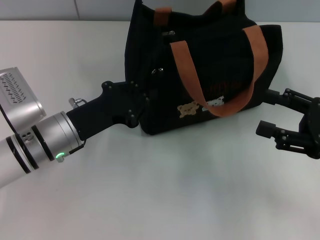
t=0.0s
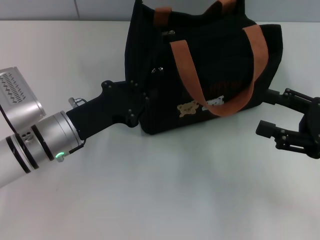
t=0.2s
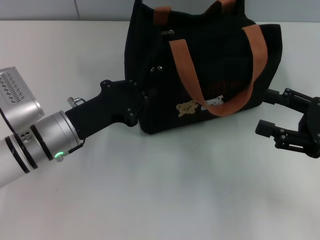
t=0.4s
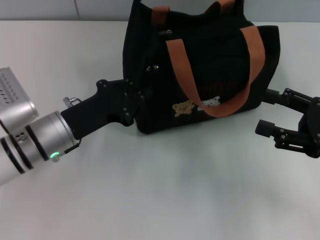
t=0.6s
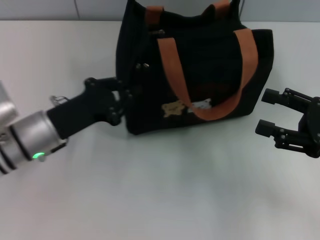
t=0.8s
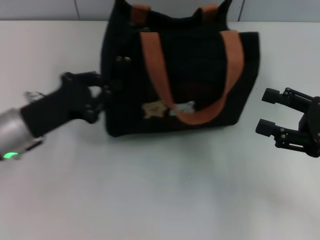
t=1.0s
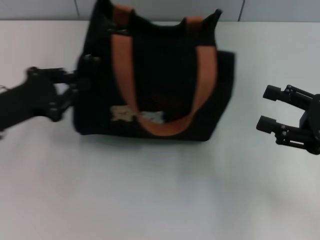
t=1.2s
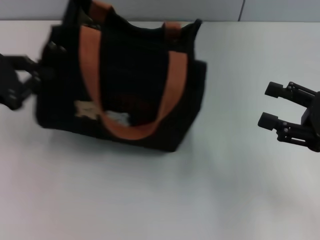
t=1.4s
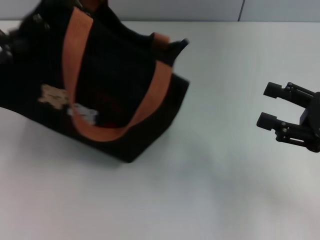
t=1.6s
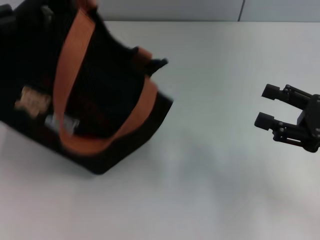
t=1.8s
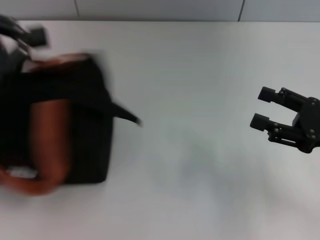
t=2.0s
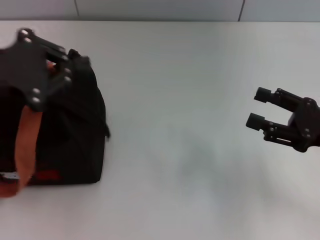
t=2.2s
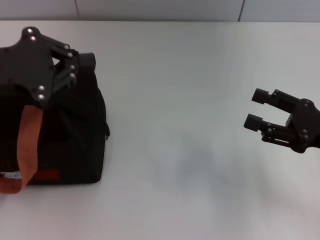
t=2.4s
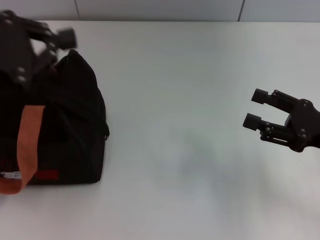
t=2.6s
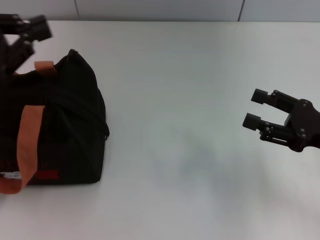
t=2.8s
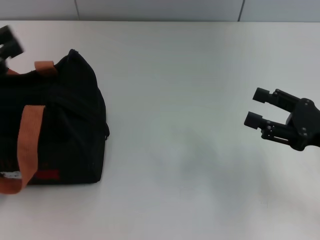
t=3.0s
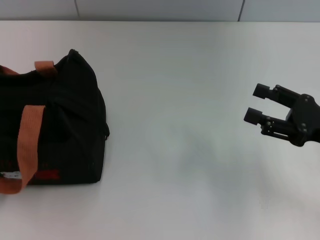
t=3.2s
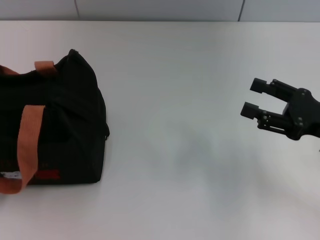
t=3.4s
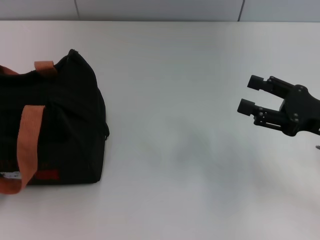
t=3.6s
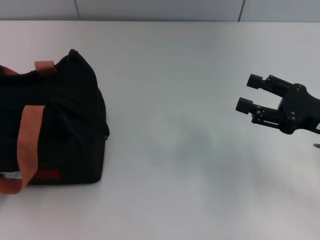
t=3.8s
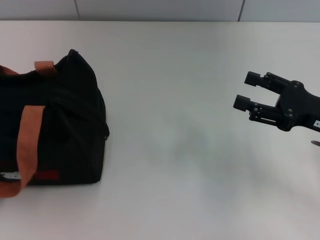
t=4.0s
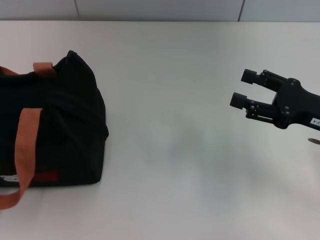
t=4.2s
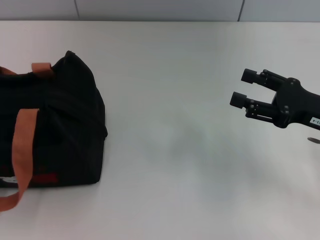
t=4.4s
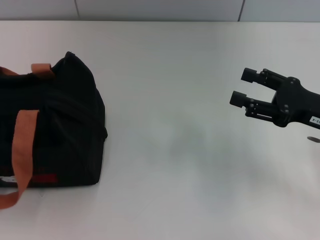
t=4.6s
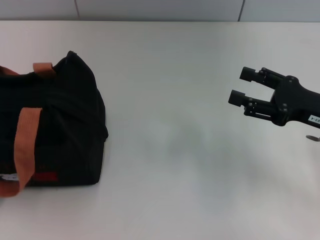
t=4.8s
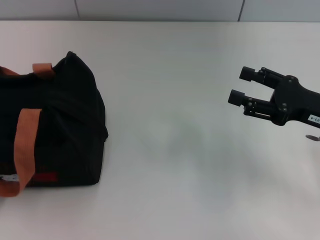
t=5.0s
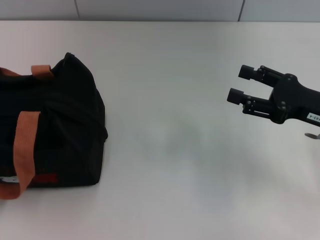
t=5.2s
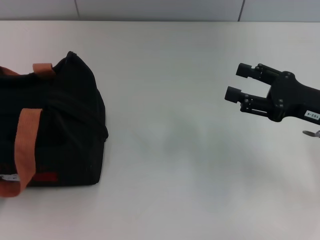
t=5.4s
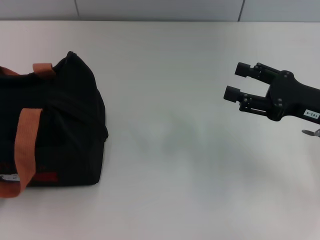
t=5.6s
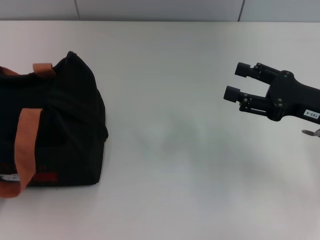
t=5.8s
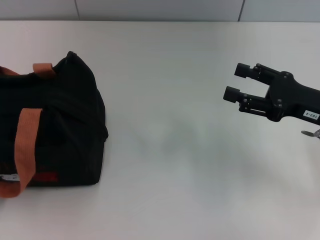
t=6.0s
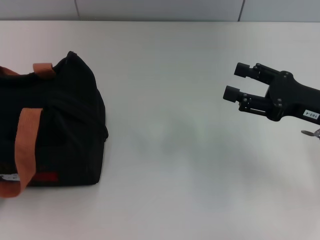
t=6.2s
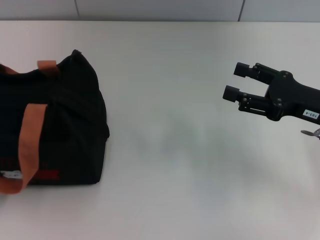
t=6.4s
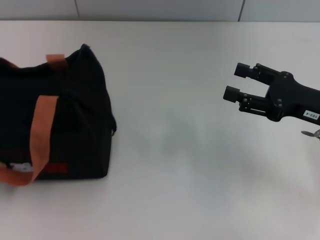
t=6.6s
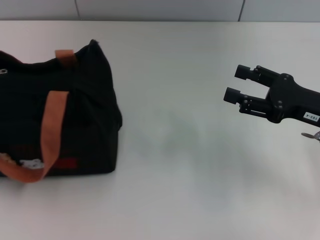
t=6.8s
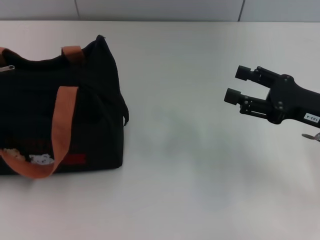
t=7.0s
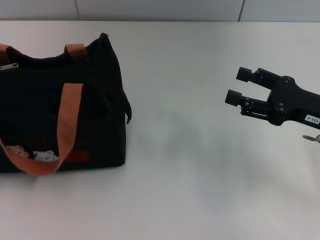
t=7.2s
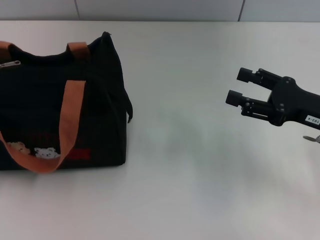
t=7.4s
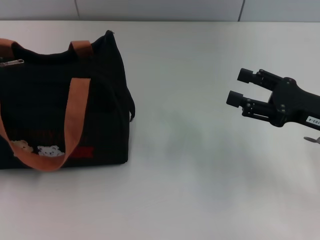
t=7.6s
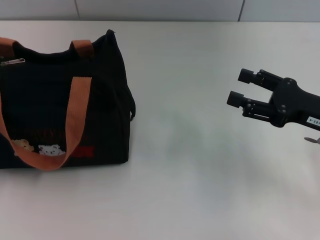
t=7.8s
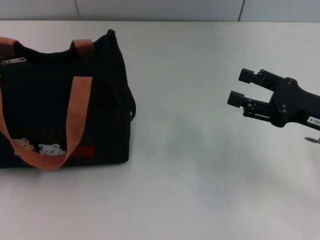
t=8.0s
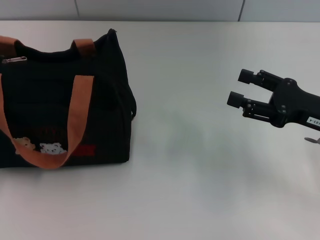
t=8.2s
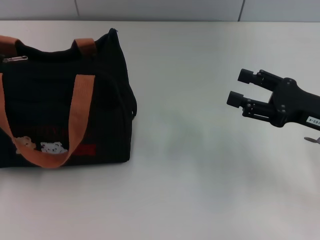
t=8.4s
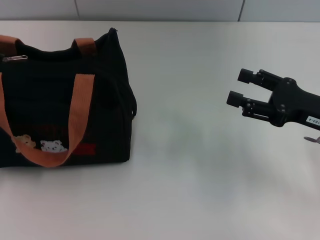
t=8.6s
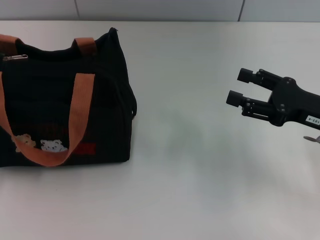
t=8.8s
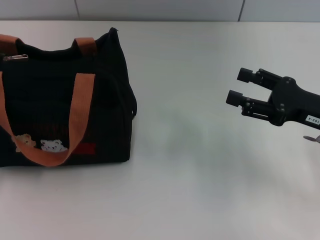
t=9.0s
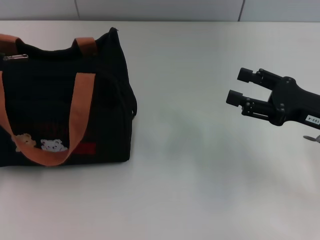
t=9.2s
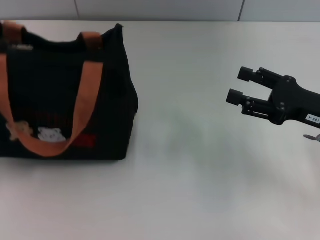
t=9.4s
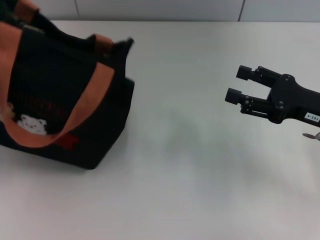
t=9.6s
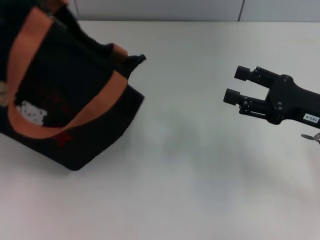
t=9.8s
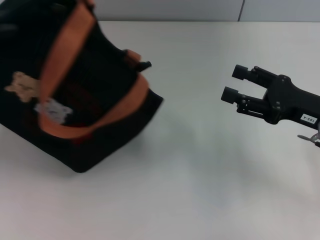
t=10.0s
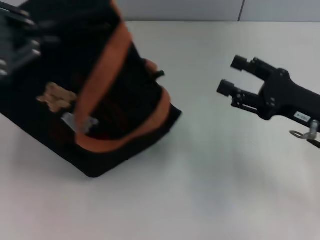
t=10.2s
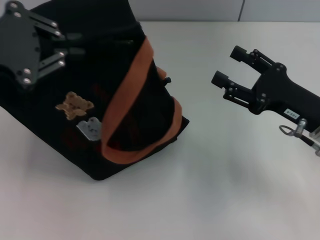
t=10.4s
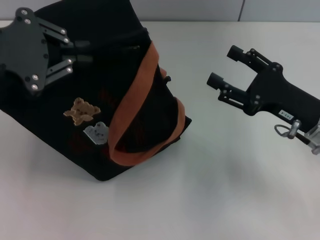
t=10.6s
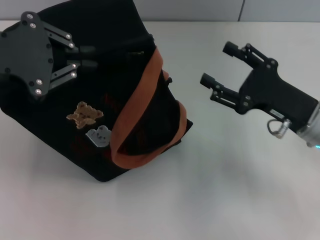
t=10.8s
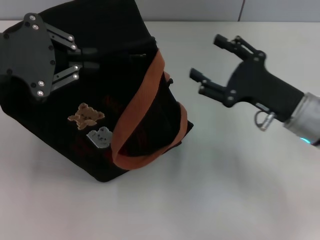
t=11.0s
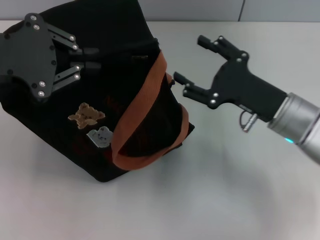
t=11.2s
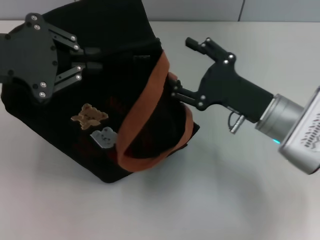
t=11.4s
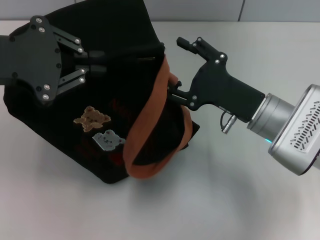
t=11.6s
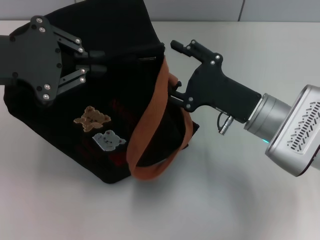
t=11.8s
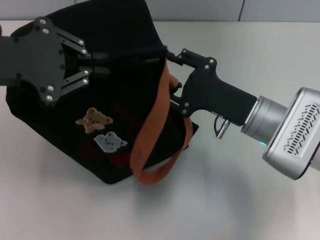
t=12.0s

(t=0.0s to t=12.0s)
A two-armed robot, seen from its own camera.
t=0.0s - t=1.6s: The left gripper heads to the left and upward, covering about 20 cm.
t=3.0s - t=4.4s: The left gripper heads backward, to the left and downward, covering some 15 cm, and opens up.
t=4.4s - t=6.0s: The grippers stay close to where they were, moving slightly.
t=6.0s - t=7.6s: The left gripper heads forward and to the right, covering approximately 10 cm, and closes.
t=7.6s - t=9.0s: Both grippers stay about where they are.
t=9.0s - t=10.4s: The left gripper travels upward, to the right and forward by roughly 20 cm.
t=10.4s - t=12.0s: The right gripper is displaced to the left by approximately 10 cm.

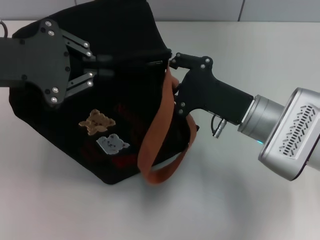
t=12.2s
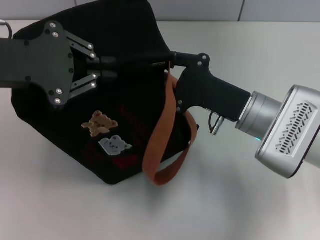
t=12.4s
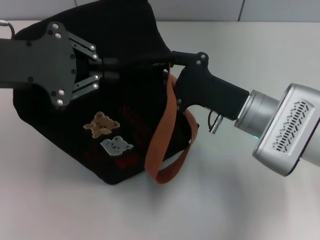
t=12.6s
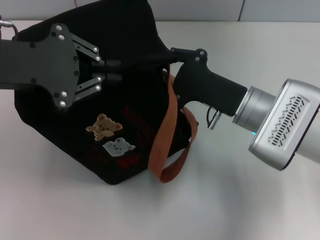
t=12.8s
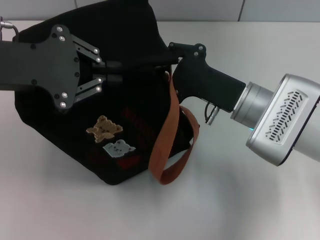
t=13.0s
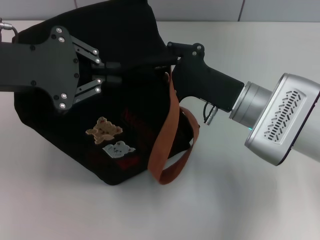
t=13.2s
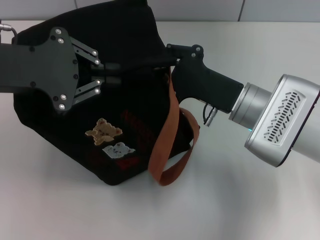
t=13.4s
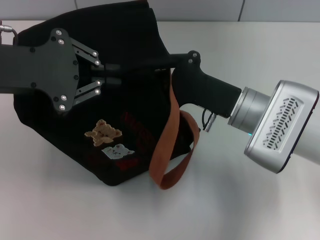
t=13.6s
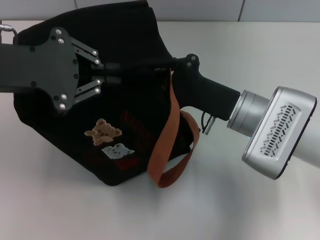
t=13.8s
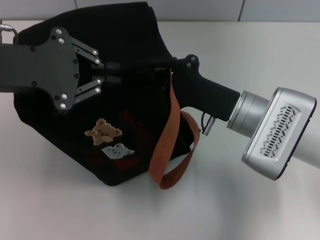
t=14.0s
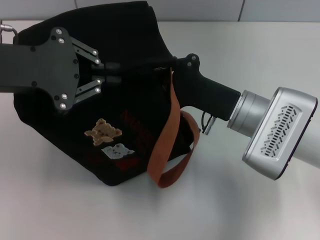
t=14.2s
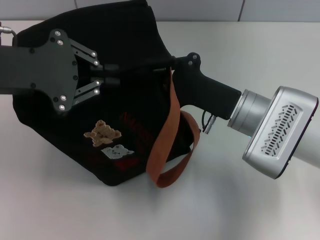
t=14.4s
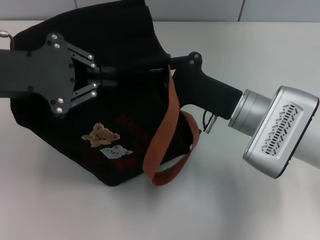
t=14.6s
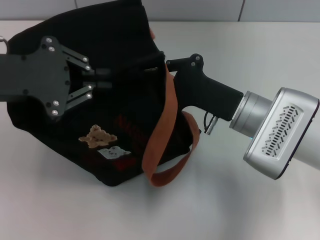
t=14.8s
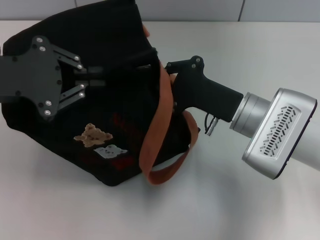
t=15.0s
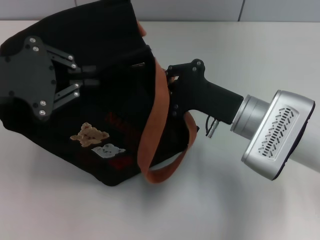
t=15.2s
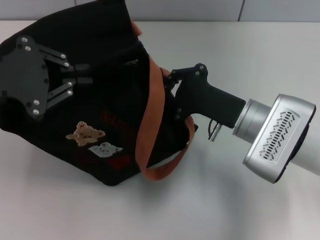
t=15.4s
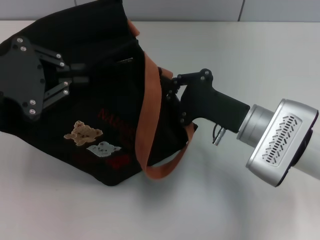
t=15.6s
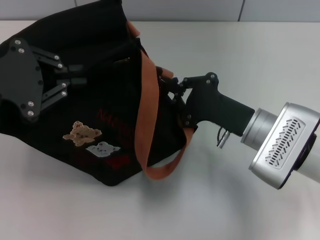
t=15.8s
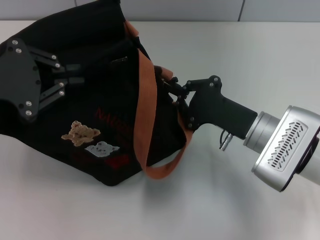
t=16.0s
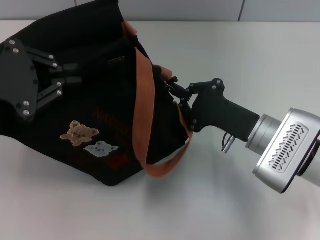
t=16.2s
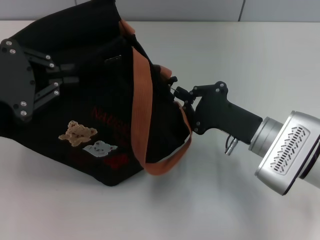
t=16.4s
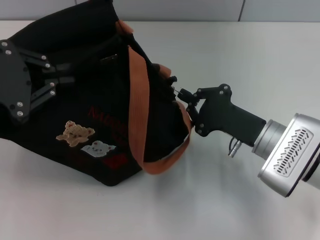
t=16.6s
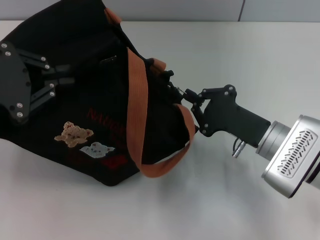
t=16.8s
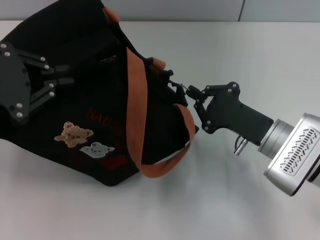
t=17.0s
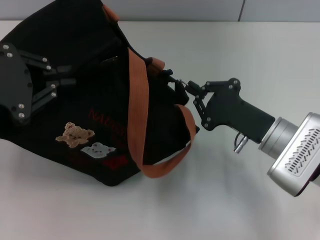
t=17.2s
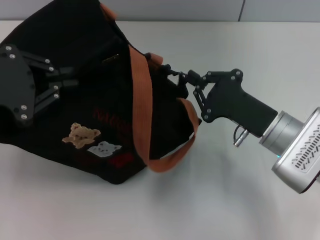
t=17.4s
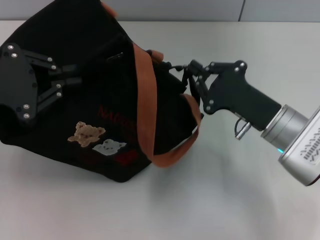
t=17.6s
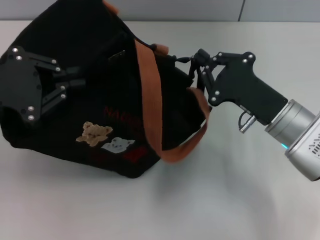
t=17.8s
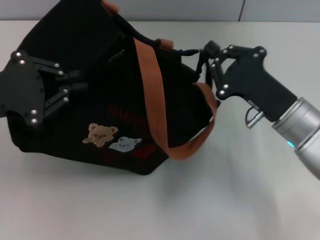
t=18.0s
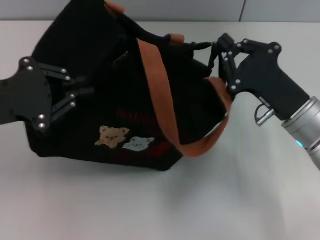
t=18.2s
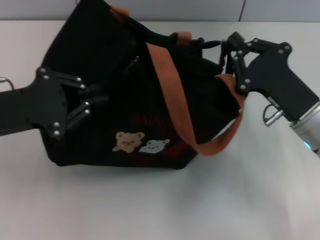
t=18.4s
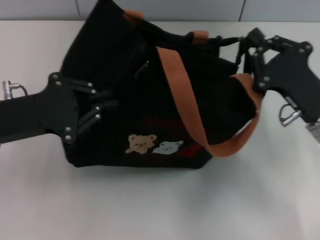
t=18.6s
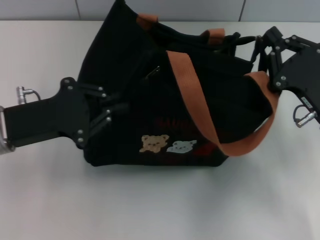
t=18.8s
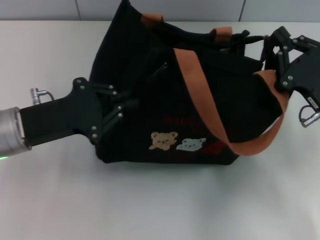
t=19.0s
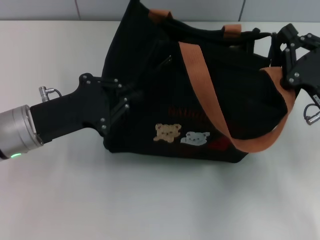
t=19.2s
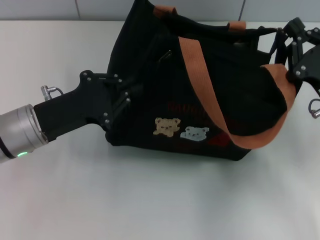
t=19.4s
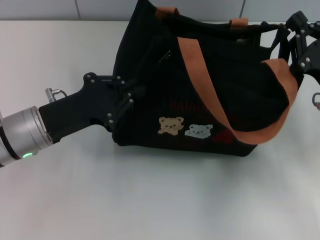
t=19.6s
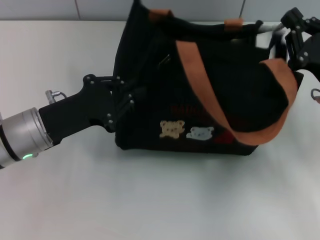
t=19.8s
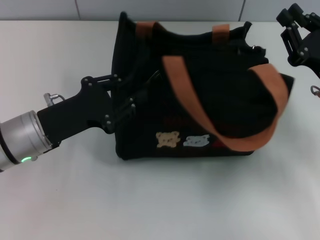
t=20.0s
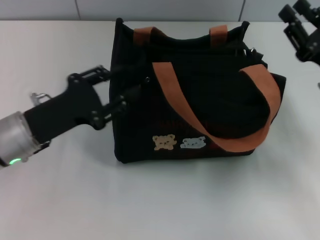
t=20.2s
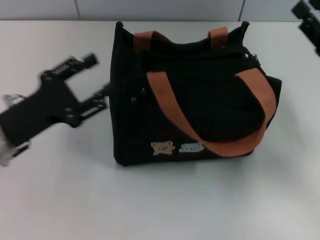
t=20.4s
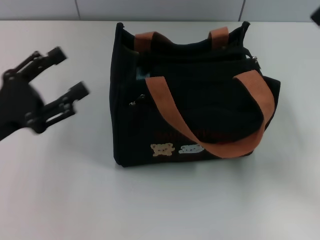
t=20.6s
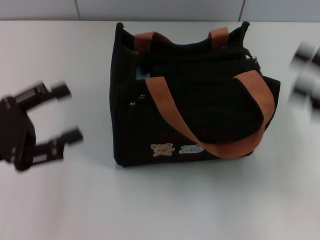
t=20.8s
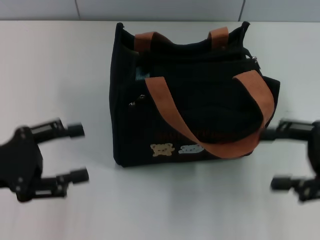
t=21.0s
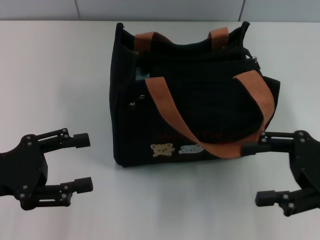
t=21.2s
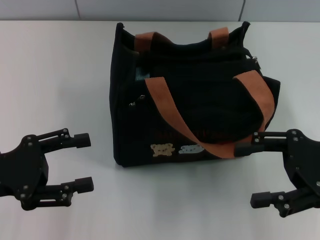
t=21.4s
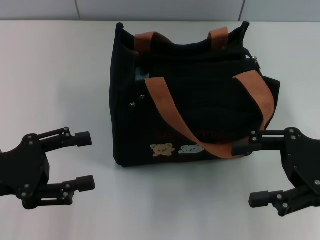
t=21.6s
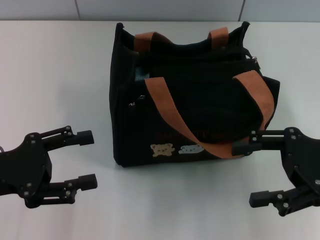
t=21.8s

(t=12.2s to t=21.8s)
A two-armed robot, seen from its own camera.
Step, t=12.2s - t=19.8s: Pull open the zipper with your right hand.
Step, t=20.0s - t=20.2s: Grab the bag with your left hand.
t=12.2s - t=13.8s: The right gripper closes.
t=15.4s - t=17.0s: The right gripper changes place by roughly 5 cm.
t=17.0s - t=18.6s: The right gripper ends up approximately 5 cm from where it was. Meanwhile the left gripper heads downward, covering roughly 10 cm.
t=18.6s - t=20.2s: The left gripper is displaced downward by approximately 5 cm. The right gripper is displaced to the right by some 5 cm.
t=20.2s - t=21.8s: The right gripper moves approximately 5 cm, and opens up. The left gripper shifts some 10 cm to the left and backward, and opens its fingers.

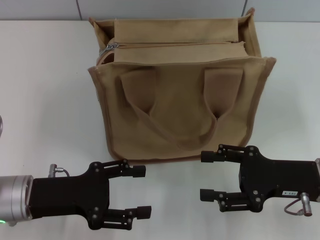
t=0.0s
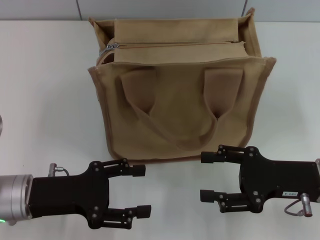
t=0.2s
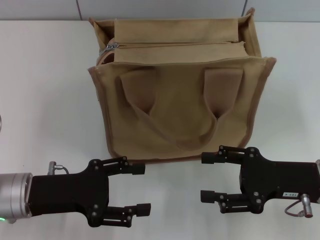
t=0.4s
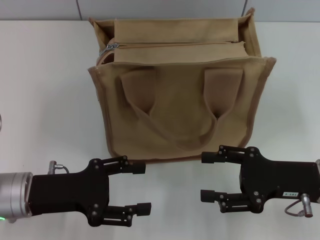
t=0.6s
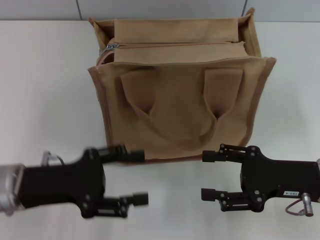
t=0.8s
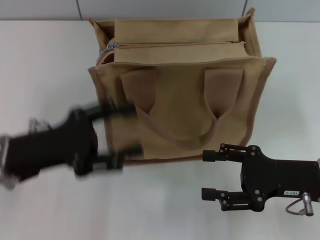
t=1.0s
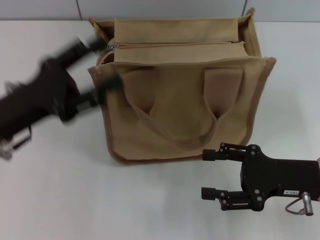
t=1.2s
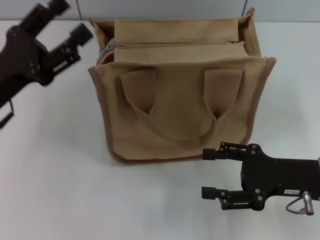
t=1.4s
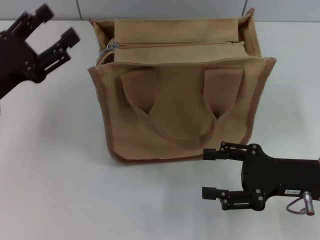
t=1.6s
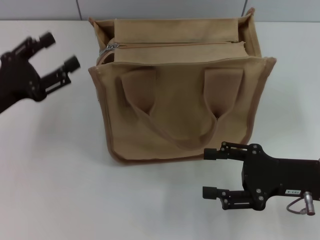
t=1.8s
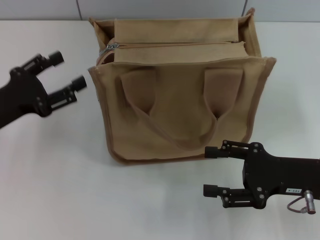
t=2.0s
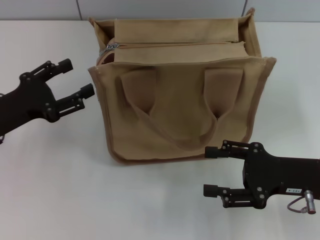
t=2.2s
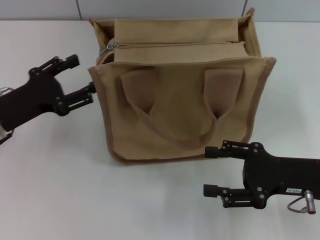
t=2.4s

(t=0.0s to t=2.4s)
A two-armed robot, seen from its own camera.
t=0.0s - t=1.2s: The left gripper heads upward, covering about 5 cm.
t=1.2s - t=2.4s: The left gripper changes place by some 5 cm.
